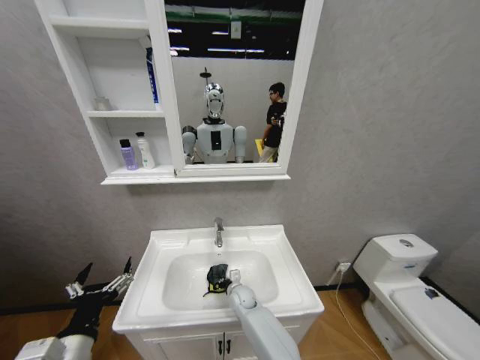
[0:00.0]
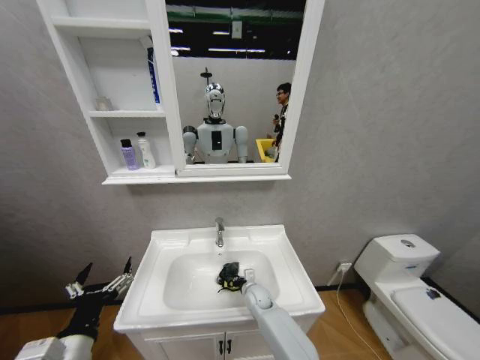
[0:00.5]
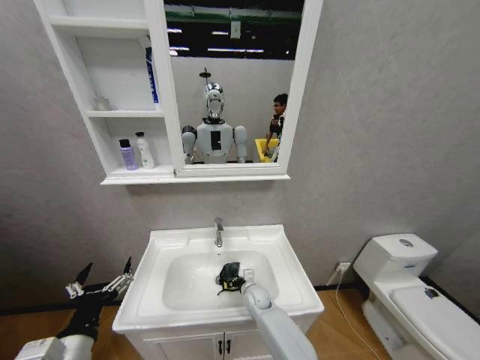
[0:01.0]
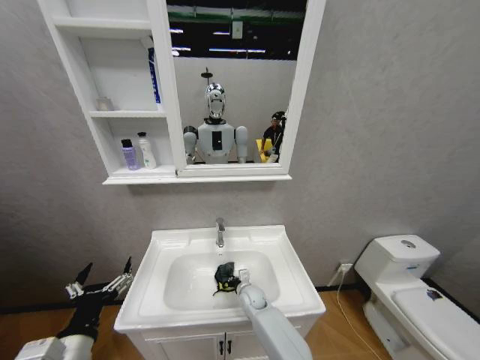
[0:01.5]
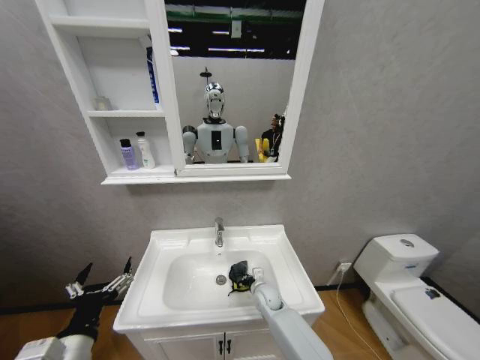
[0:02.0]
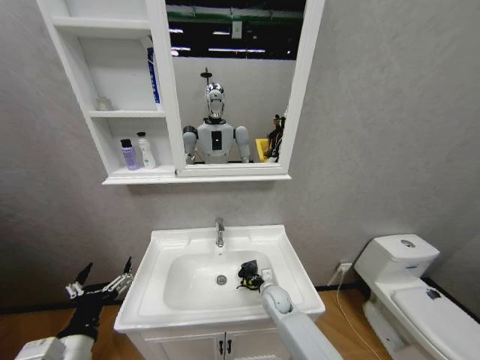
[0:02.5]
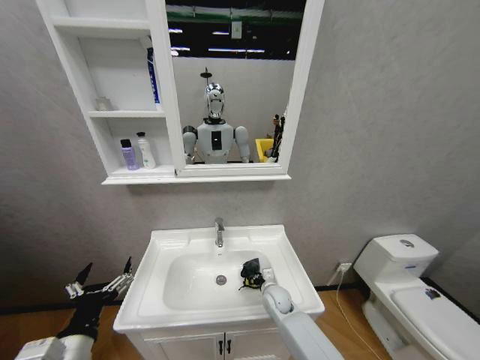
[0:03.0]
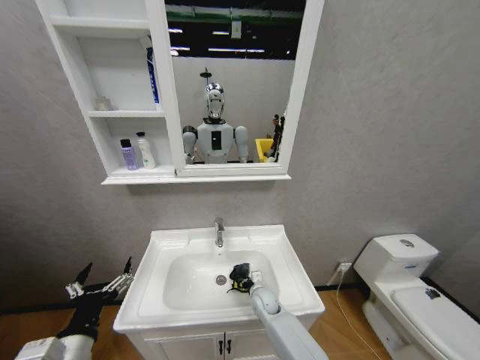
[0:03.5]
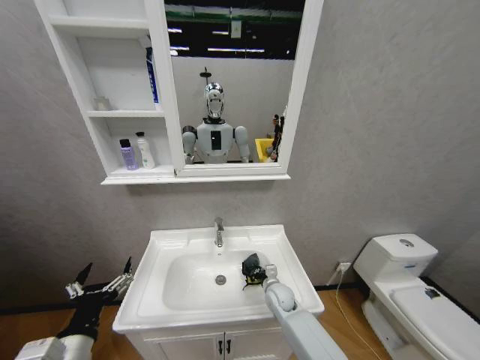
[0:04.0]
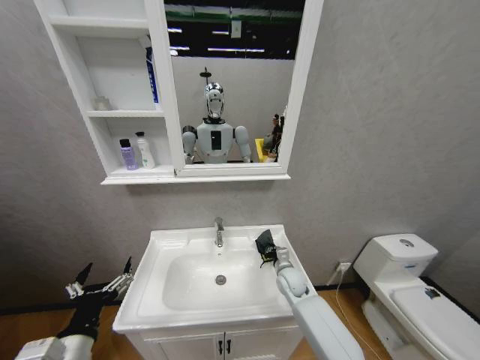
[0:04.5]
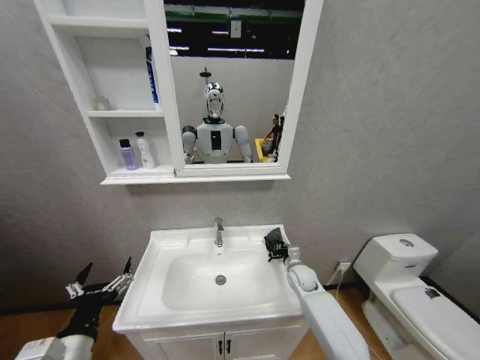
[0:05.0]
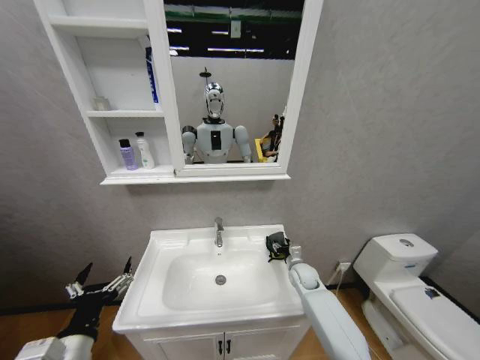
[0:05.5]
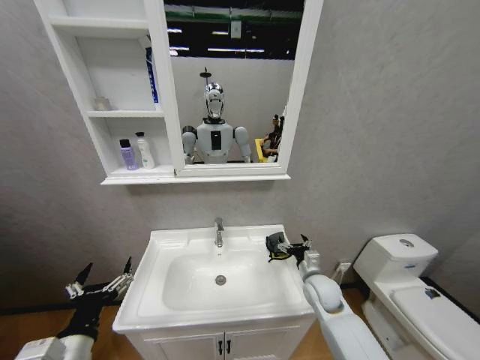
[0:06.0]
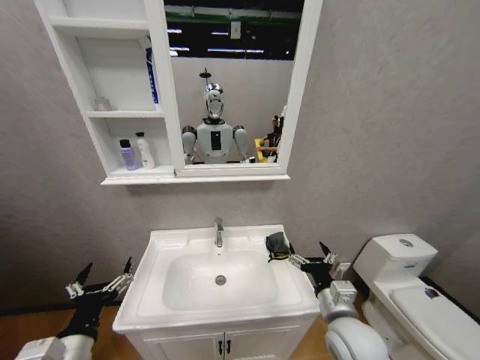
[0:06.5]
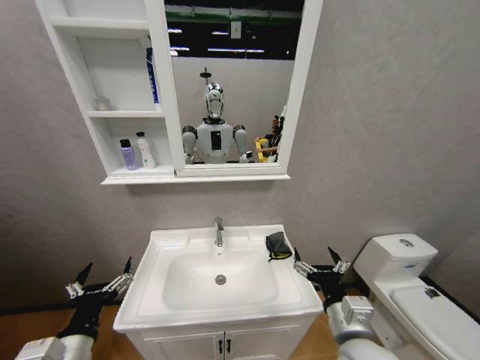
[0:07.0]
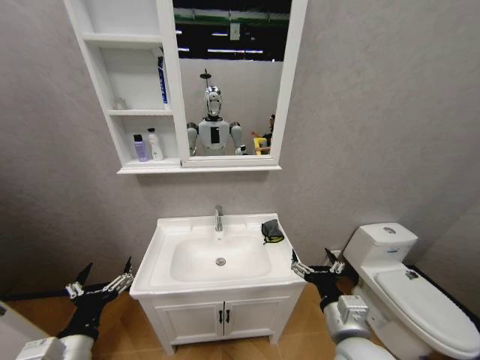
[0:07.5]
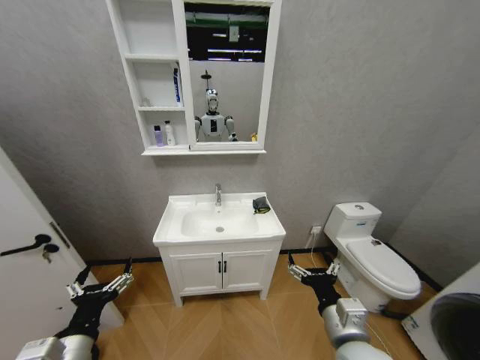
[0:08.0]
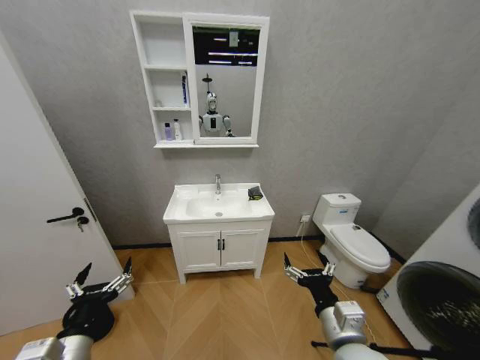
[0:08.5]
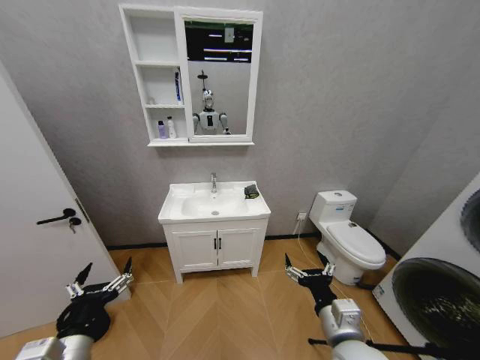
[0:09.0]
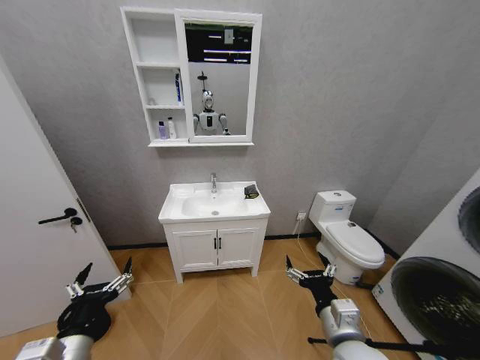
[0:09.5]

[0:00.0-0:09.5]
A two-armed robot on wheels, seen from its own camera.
Task of the whole recording: Move facial cleanser and shampoo from washbasin to cabinet, then wipe washbasin with towel.
0:00.0 to 0:02.0: The right gripper moves to the right, about 10 cm.
0:02.0 to 0:04.0: The grippers make only small movements.
0:04.0 to 0:05.5: The right gripper heads to the right and forward, covering some 10 cm, and opens up.
0:05.5 to 0:07.5: The right gripper shifts about 30 cm backward and upward, and opens up.
